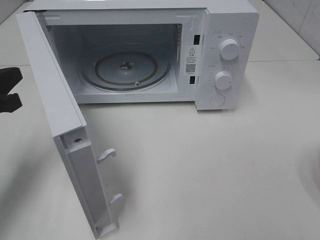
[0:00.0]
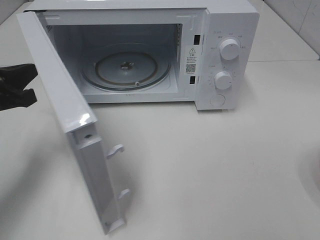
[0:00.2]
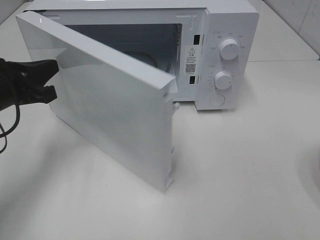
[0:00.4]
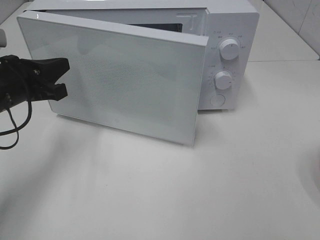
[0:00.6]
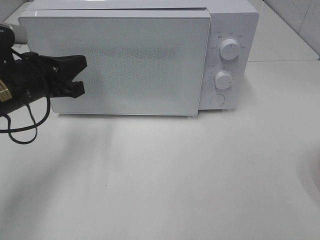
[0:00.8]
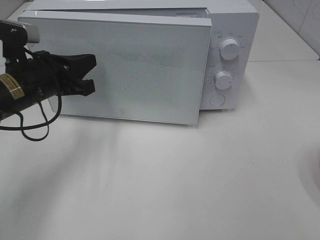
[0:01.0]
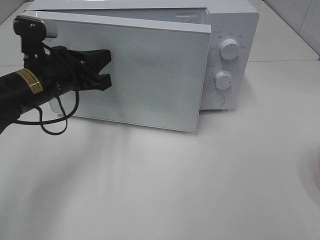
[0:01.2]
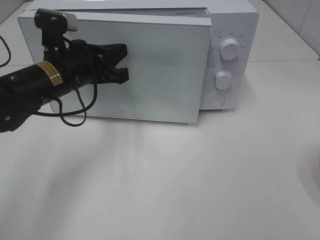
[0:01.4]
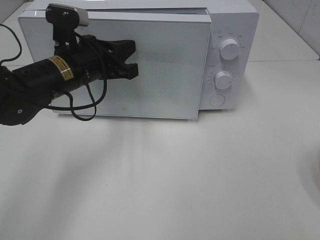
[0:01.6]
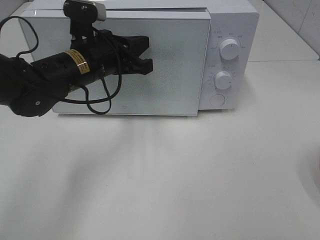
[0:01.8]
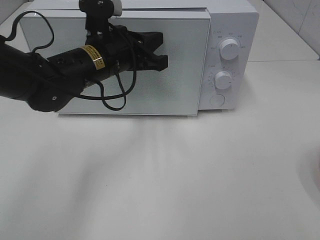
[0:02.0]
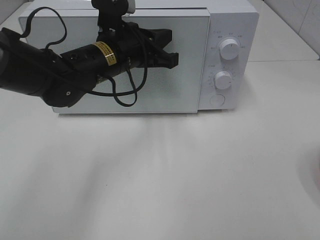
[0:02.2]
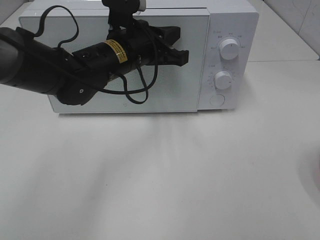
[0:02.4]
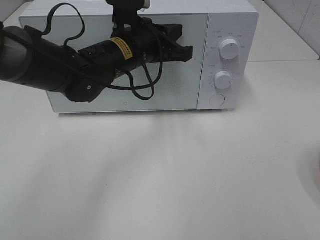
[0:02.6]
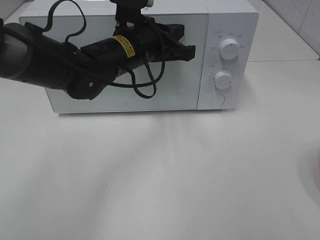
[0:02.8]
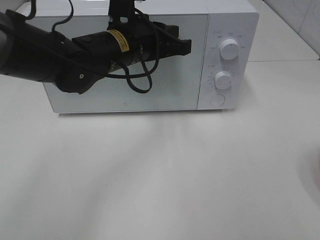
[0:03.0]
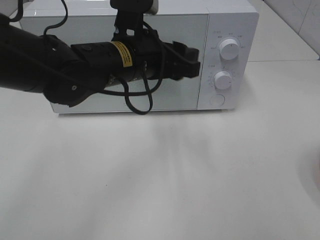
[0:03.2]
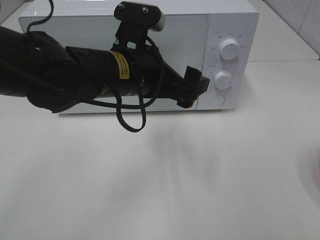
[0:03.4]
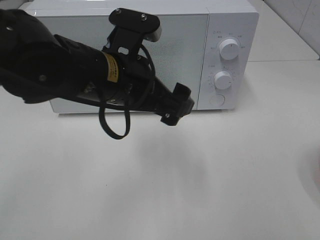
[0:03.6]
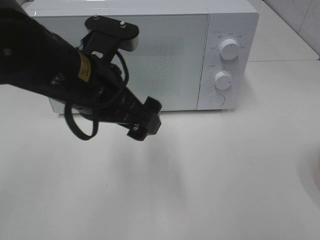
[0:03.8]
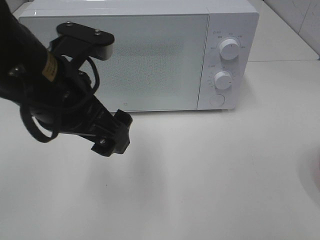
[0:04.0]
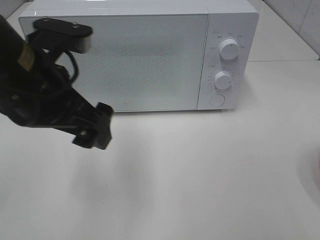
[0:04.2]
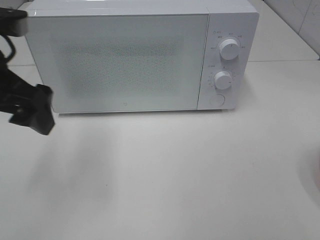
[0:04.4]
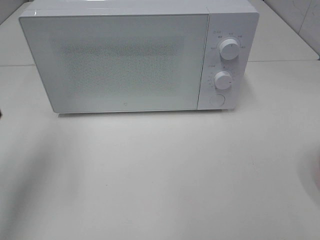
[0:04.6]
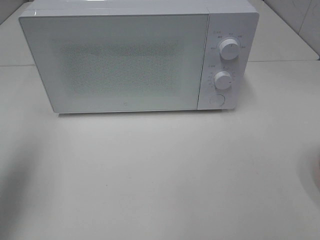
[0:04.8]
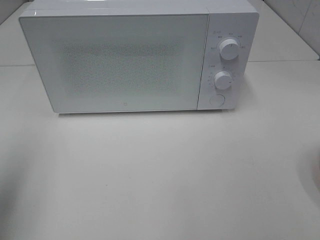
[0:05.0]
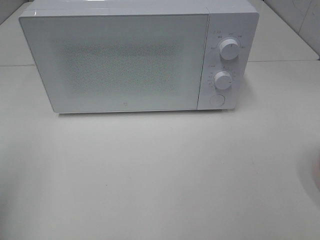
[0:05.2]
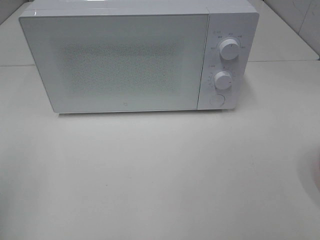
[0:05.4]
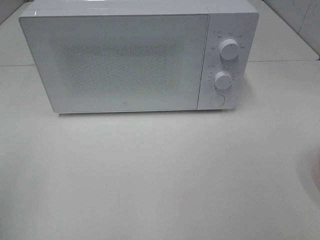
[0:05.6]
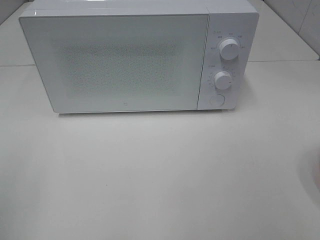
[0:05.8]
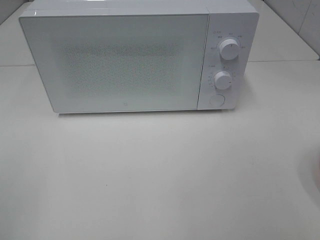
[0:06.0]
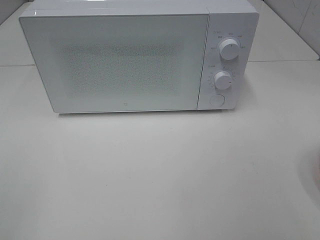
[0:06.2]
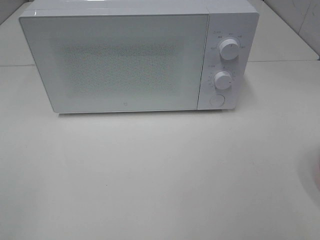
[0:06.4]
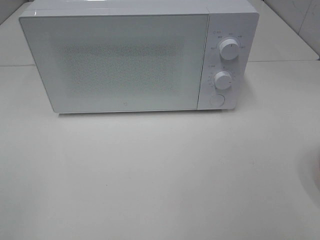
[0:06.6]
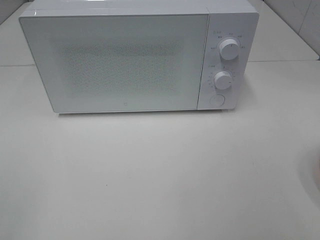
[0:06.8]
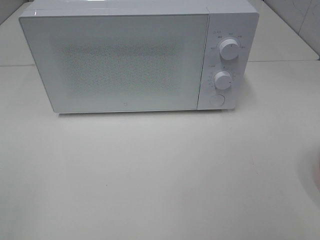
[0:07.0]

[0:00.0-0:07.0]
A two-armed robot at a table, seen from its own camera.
Task of the whole recording: Heat the burger.
Step, 0:00.0 to 0:02.6: Left hand: close the microwave door.
0:00.0 to 0:01.4: The left gripper goes approximately 15 cm to the right and forward.
0:01.4 to 0:02.8: The left gripper moves to the right, approximately 10 cm.
0:02.8 to 0:04.2: The left gripper is displaced backward, to the left and upward by some 20 cm, and opens.
0:04.2 to 0:05.6: The left gripper moves to the left and backward, approximately 25 cm.
